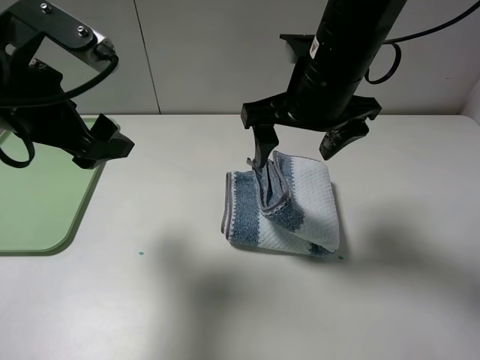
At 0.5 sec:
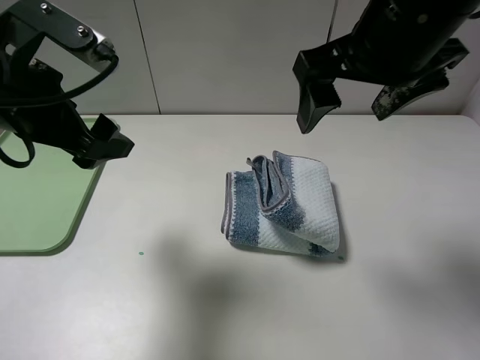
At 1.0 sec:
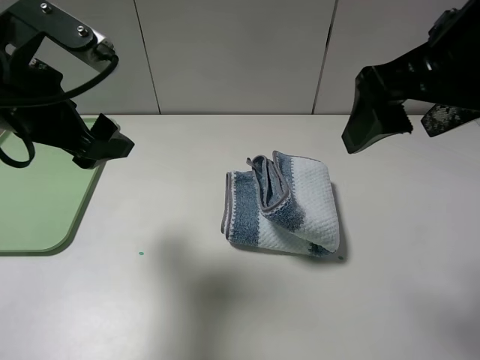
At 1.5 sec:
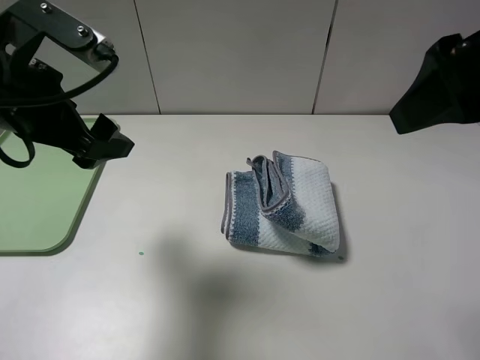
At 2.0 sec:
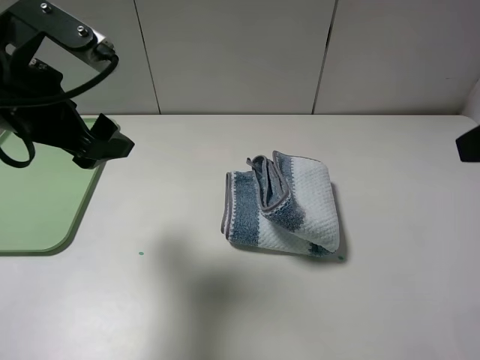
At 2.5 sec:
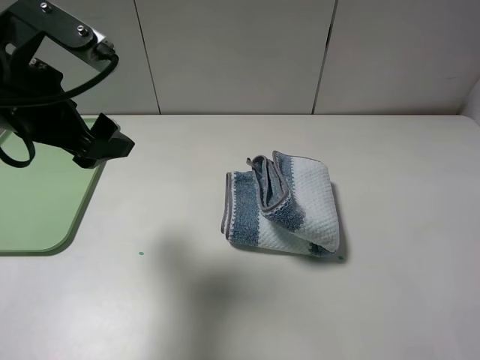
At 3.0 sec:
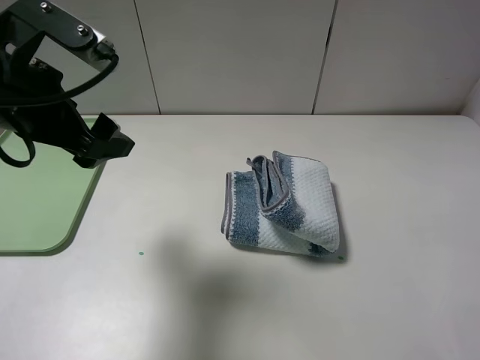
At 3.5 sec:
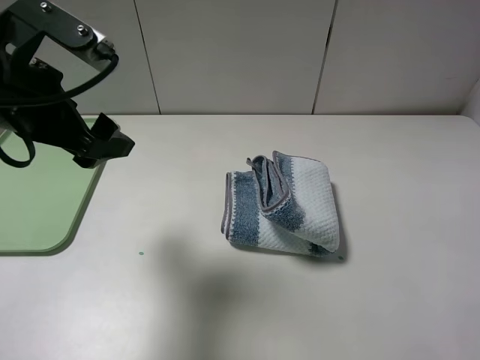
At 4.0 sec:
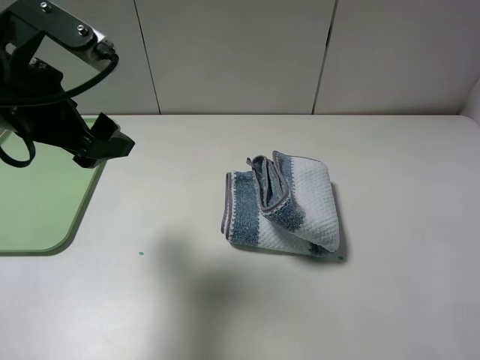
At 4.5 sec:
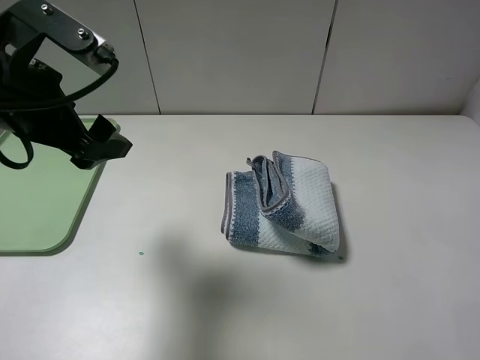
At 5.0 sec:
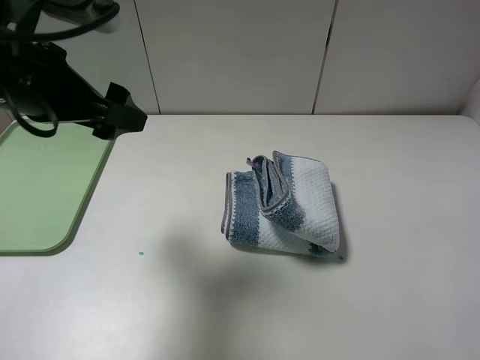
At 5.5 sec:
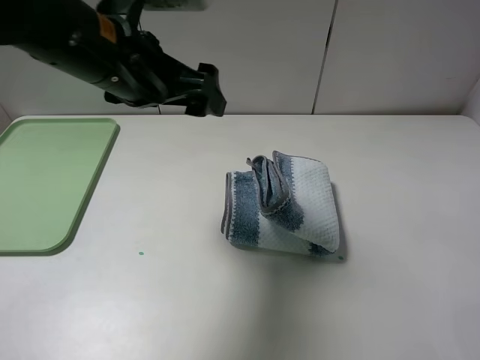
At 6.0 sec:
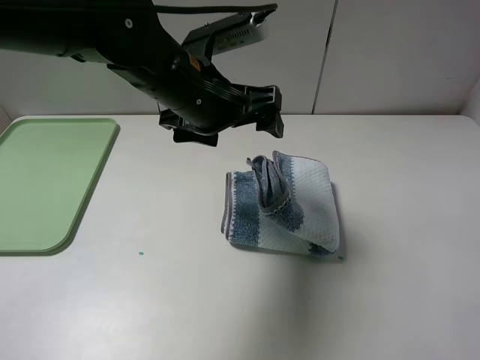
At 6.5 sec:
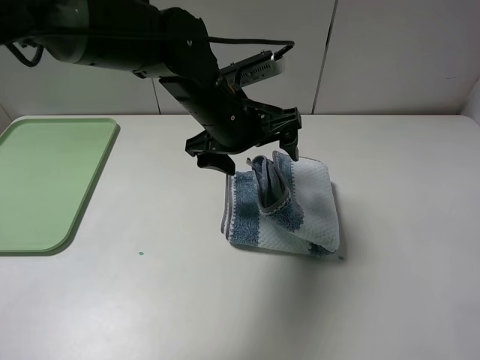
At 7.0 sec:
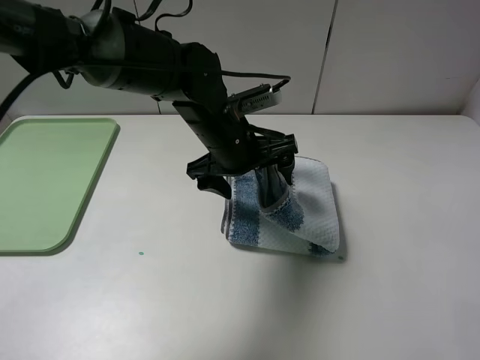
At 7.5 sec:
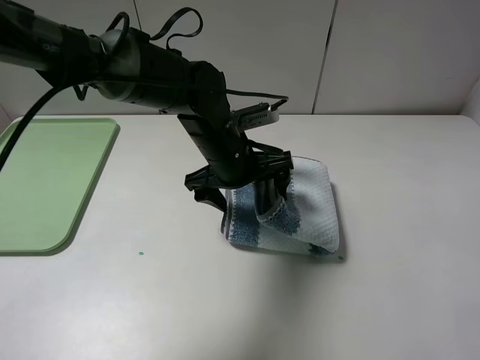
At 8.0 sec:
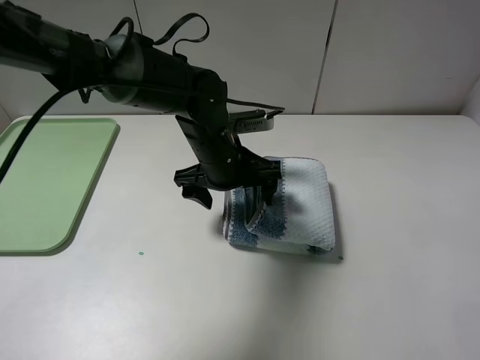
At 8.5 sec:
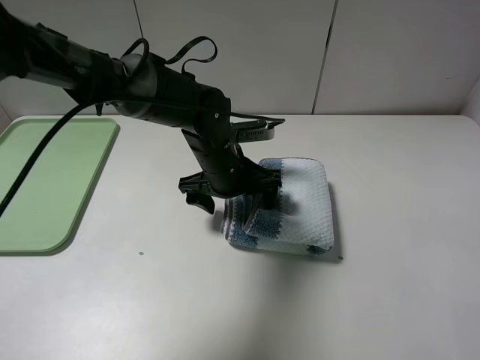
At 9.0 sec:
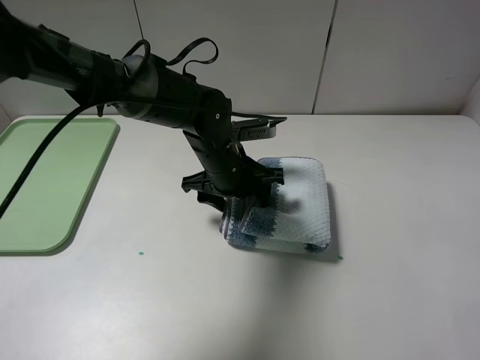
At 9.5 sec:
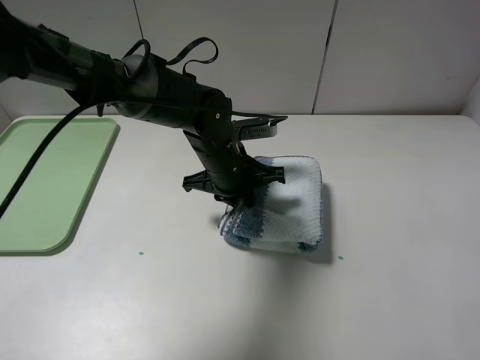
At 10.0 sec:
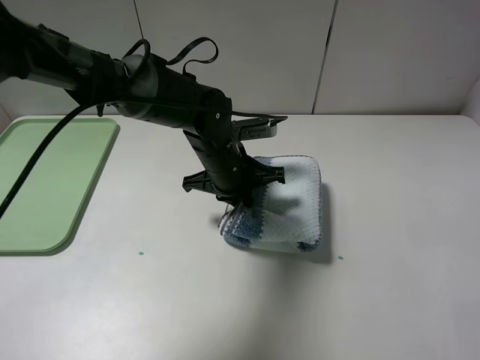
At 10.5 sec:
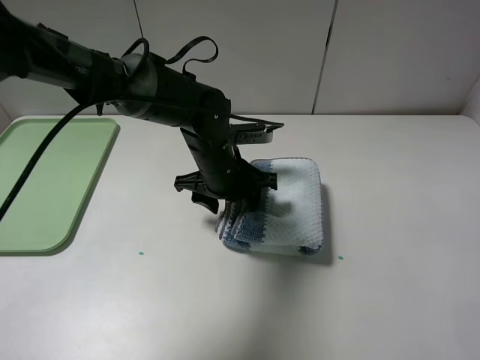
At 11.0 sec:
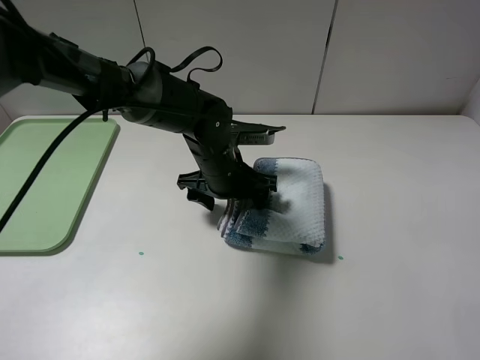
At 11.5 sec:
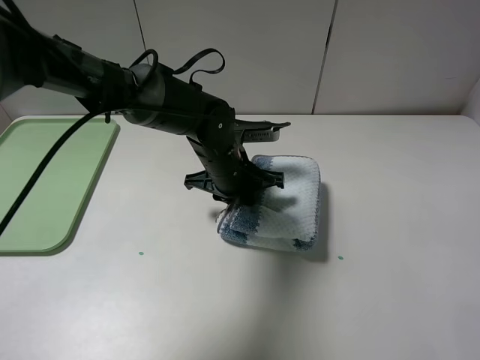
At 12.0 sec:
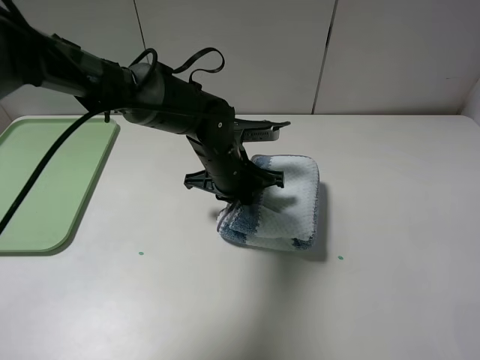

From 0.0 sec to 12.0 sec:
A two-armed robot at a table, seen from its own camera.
Step, from 1.0 sec to 11.5 sec: Grasp the blue white towel with the left gripper.
From 0.0 sec to 2.0 sec: The right gripper goes about 25 cm to the right, backward and upward.
From 4.0 sec to 6.0 sec: The left gripper travels to the right and forward by some 15 cm.
From 6.0 sec to 8.0 sec: The left gripper goes some 10 cm downward.
From 8.0 sec to 10.0 sec: The left gripper closes up.
From 10.0 sec to 12.0 sec: The left gripper opens, then closes again.

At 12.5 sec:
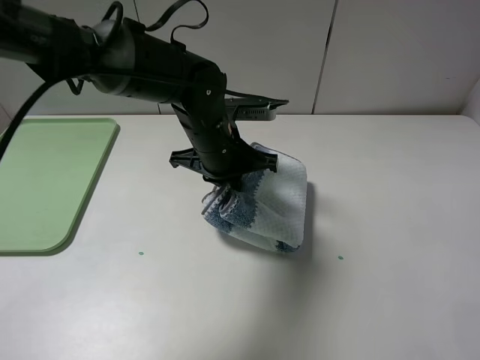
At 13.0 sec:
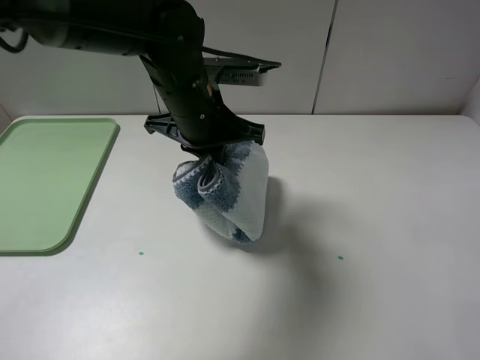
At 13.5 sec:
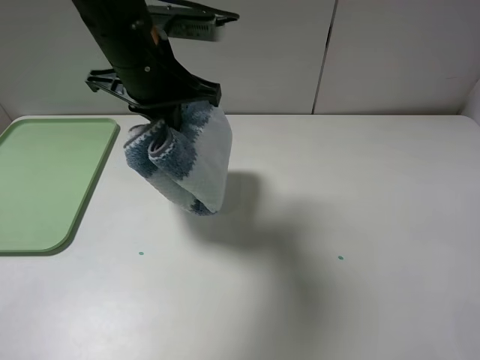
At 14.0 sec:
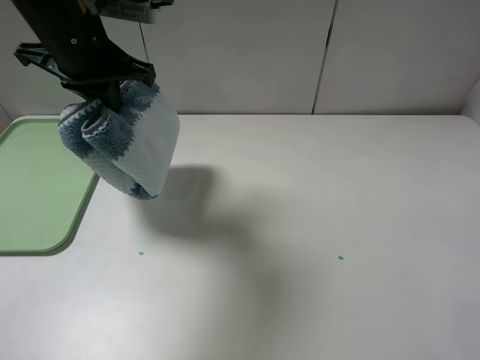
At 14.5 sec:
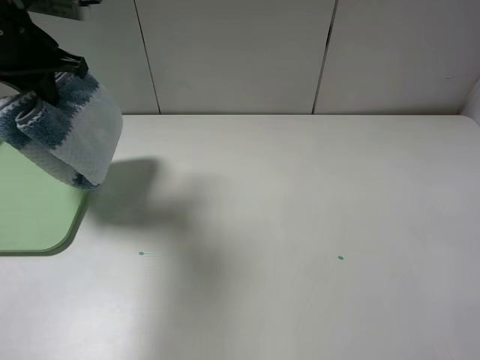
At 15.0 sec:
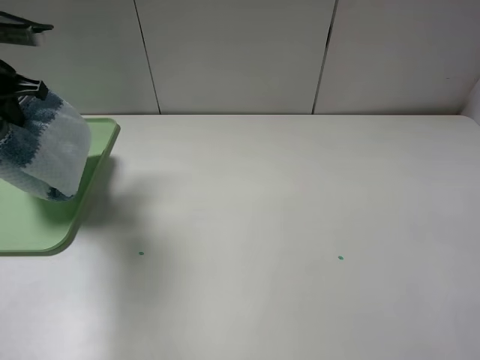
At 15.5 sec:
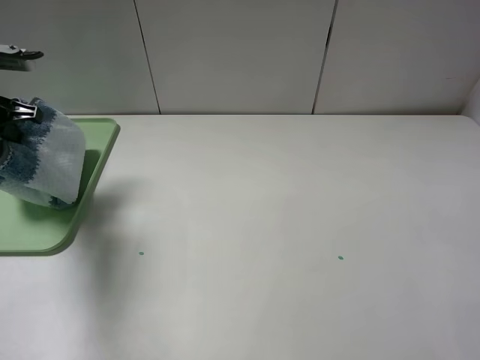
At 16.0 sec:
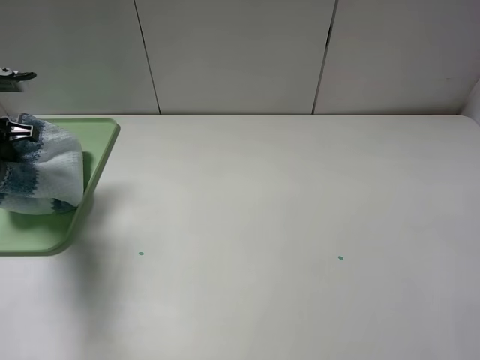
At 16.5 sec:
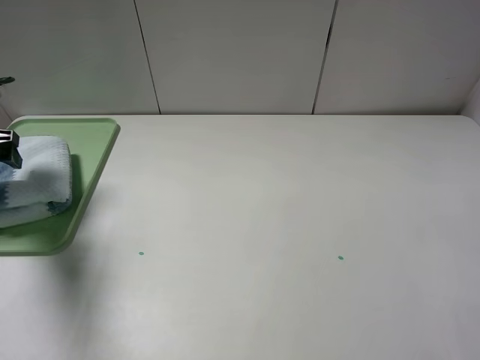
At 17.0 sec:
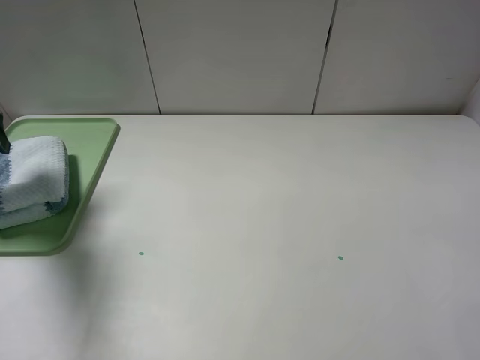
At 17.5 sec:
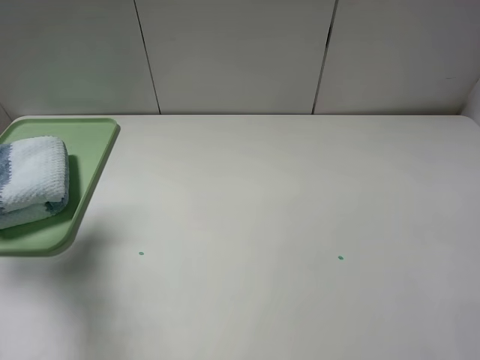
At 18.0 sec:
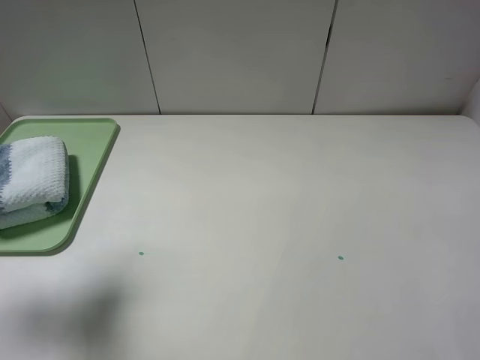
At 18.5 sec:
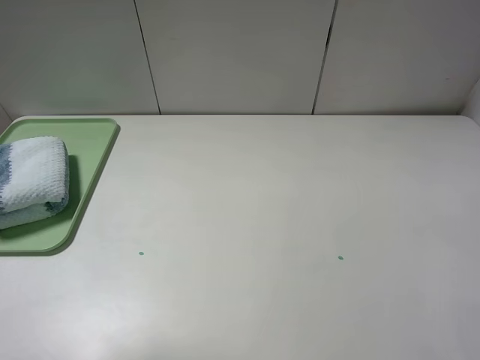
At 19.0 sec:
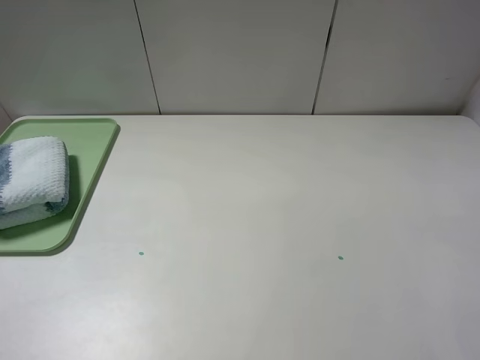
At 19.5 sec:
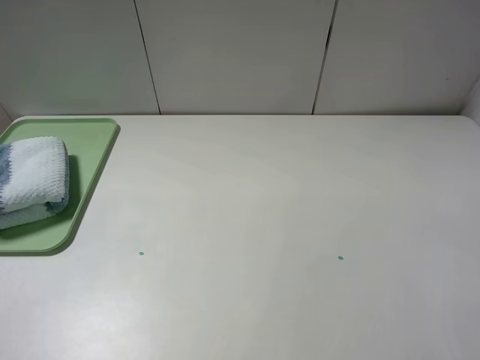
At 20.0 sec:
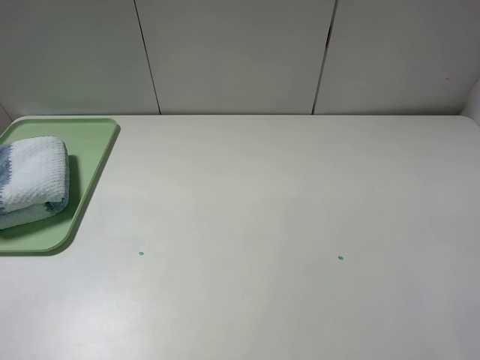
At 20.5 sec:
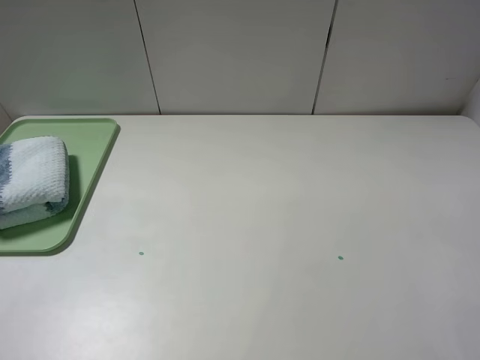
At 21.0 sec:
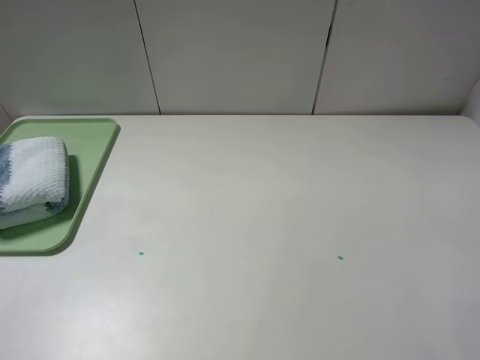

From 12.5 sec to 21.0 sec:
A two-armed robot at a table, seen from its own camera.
From 12.5 sec to 14.5 sec: The left gripper travels to the left and upward by approximately 30 cm.
From 14.5 sec to 16.5 sec: The left gripper is displaced to the left and downward by approximately 15 cm, and opens.
From 16.5 sec to 19.0 sec: The left gripper travels backward and upward by roughly 35 cm.
